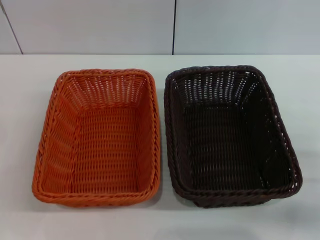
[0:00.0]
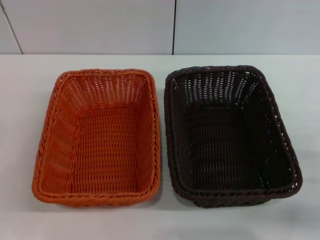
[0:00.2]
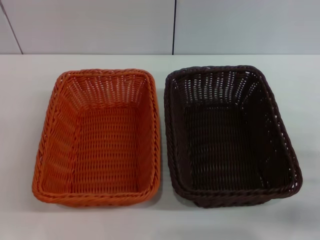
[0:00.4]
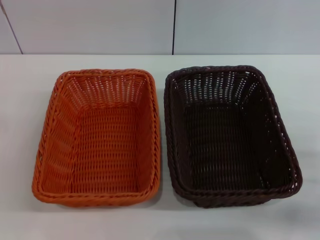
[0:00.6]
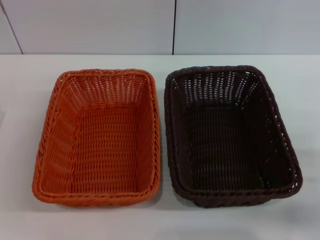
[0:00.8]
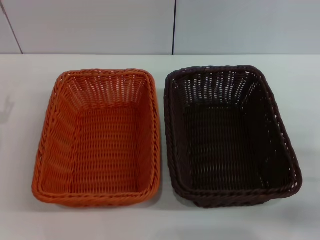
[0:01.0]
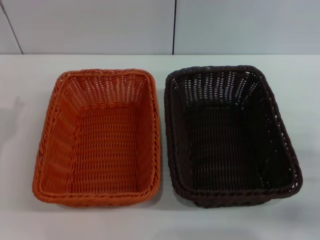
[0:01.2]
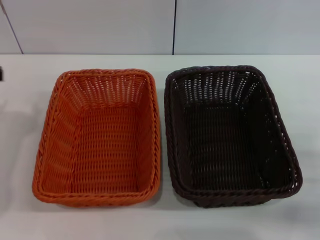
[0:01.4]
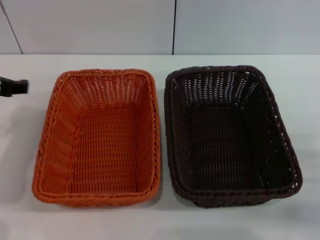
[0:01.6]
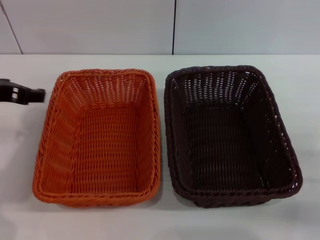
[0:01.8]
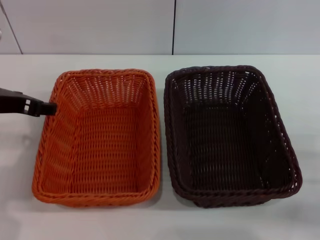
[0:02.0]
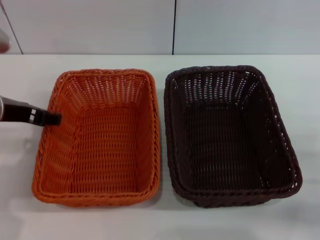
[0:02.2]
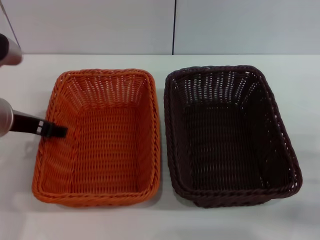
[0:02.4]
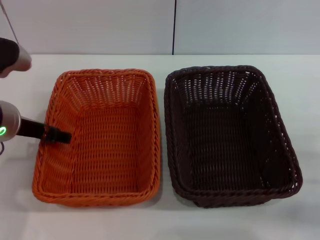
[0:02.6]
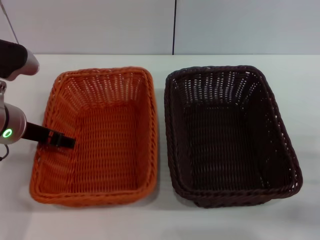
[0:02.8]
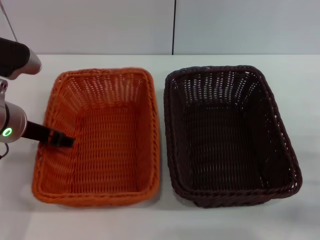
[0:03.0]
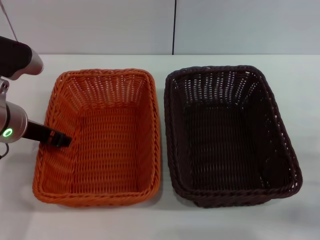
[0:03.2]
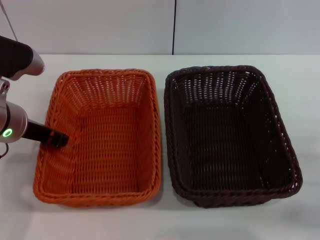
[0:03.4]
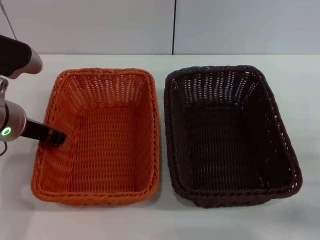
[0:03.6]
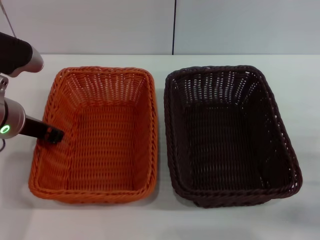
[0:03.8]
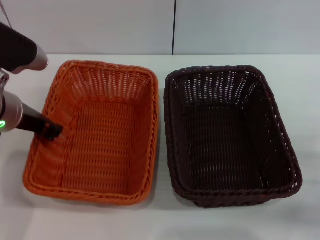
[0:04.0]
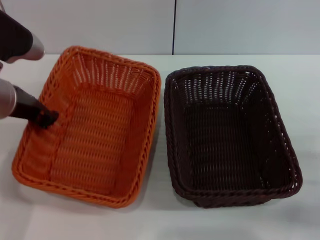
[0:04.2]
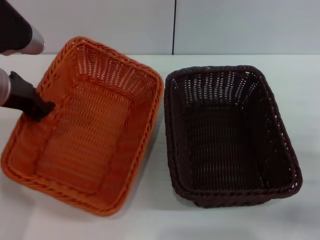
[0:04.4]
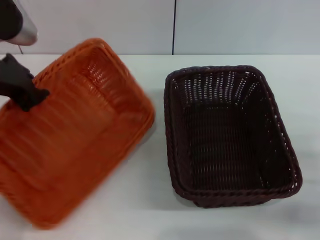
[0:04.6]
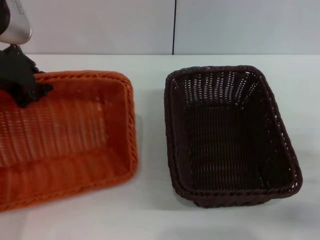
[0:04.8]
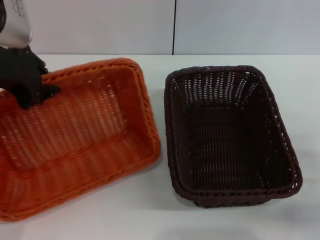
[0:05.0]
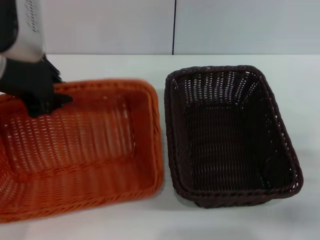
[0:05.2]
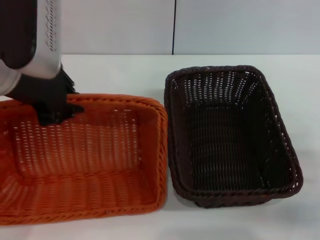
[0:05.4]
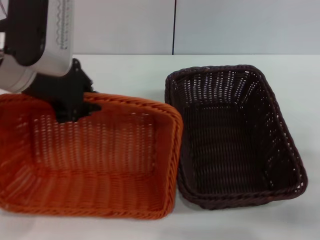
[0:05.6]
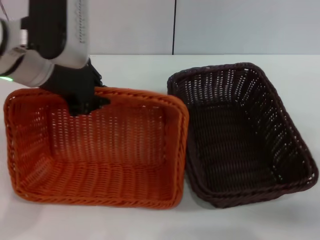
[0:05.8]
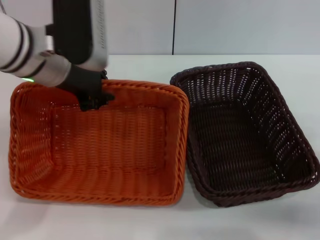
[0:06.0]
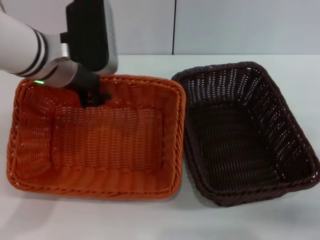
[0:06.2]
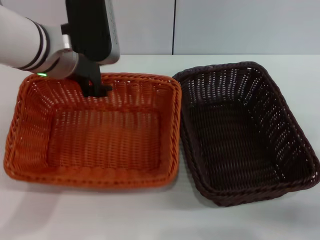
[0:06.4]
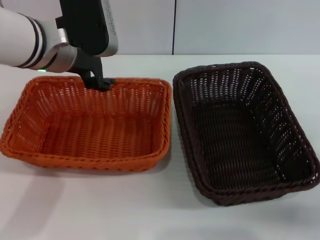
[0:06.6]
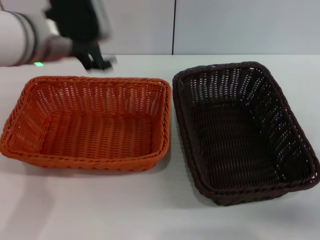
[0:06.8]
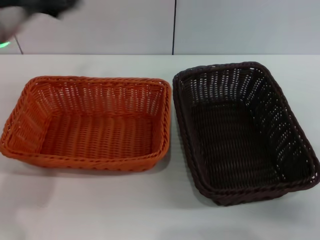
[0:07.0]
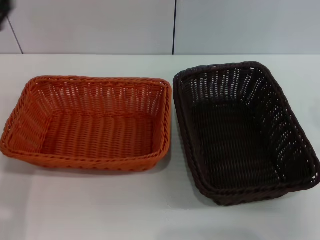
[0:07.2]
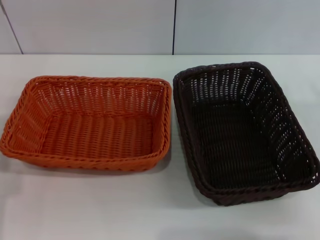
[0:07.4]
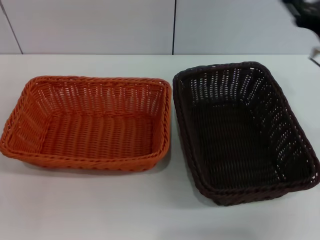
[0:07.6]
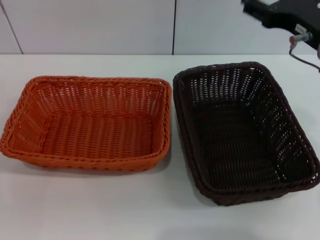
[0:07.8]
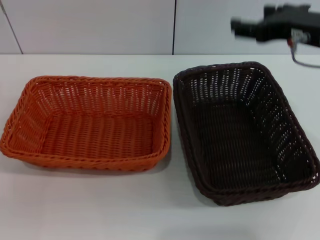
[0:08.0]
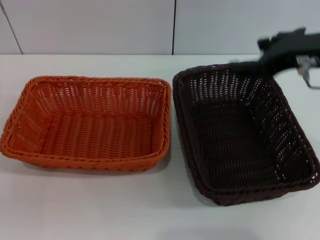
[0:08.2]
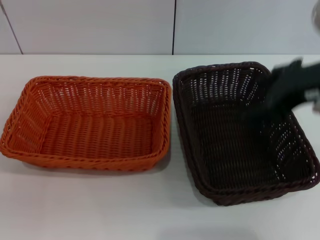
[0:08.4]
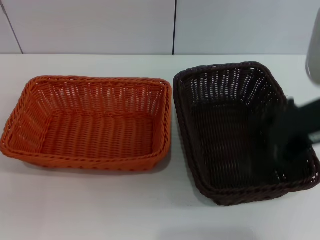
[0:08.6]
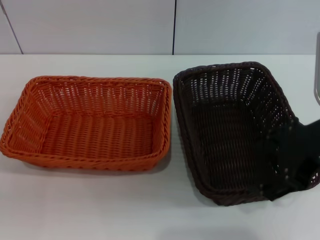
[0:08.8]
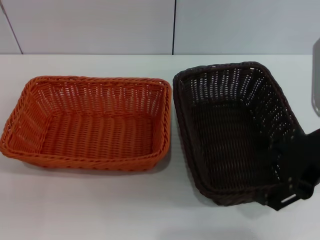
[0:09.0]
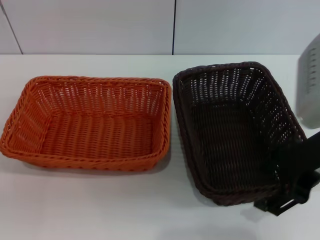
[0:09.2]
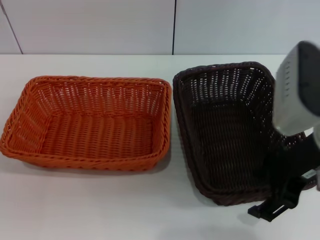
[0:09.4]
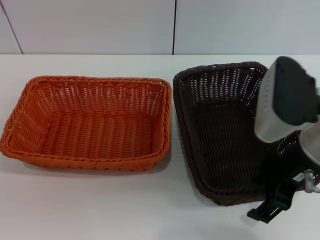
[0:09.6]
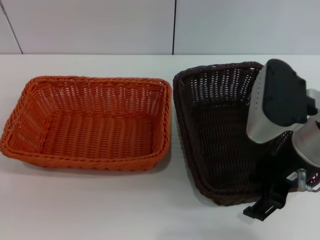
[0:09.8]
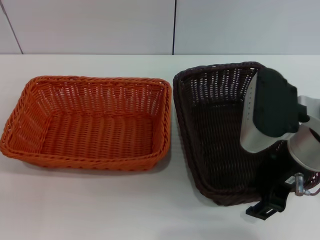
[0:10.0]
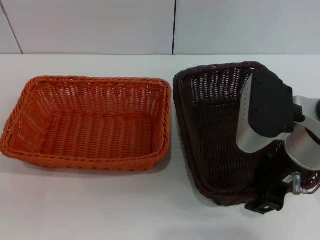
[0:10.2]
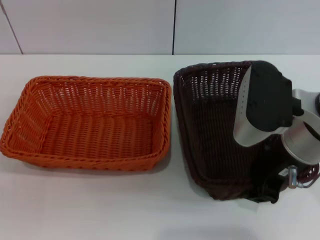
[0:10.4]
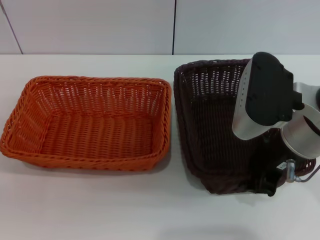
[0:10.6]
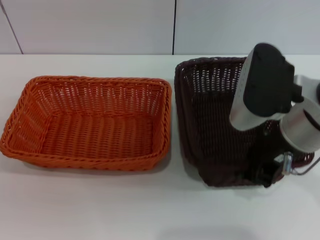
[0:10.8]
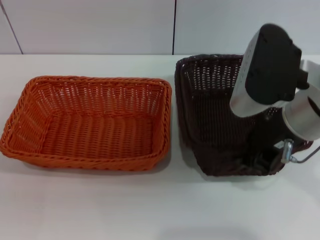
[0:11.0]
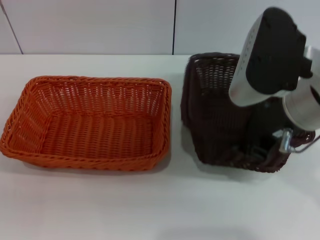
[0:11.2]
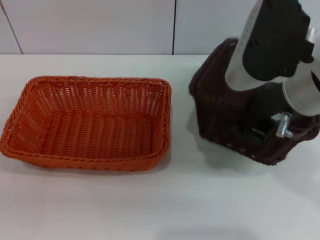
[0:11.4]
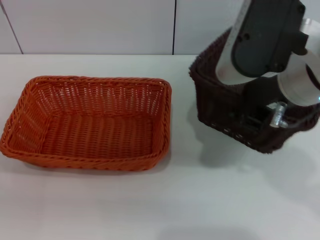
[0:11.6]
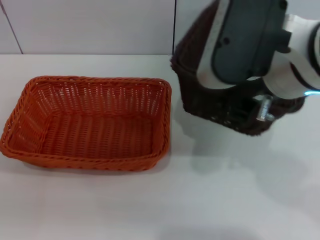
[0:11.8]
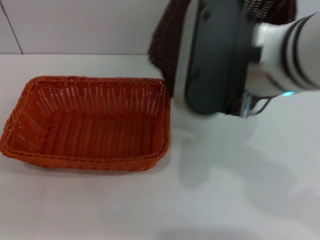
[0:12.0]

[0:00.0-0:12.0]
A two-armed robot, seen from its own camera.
Step, 0:00.0 to 0:04.2: Pick up the light basket with the left gripper.
Step, 0:04.6 to 0:06.4: Place the light basket in the center of view with the left gripper.
Step, 0:06.6 to 0:10.6: Pick up the dark basket with the right gripper.
0:00.0 to 0:01.6: The left gripper goes some 20 cm upward and forward.
0:01.6 to 0:03.0: The left gripper heads downward and to the right, covering about 10 cm.
0:03.0 to 0:04.4: The left gripper moves upward, about 5 cm, and closes.
0:04.4 to 0:06.0: The left gripper moves to the right, about 5 cm.
0:06.0 to 0:07.6: The left gripper moves to the left, backward and downward, some 25 cm, and opens its fingers; the right gripper is displaced upward, forward and to the left by about 20 cm.
0:07.6 to 0:09.0: The right gripper goes roughly 10 cm upward and backward.
0:09.0 to 0:10.4: The right gripper goes roughly 5 cm downward, and closes up.
0:10.4 to 0:12.0: The right gripper shifts some 10 cm upward and to the left, and closes its fingers.

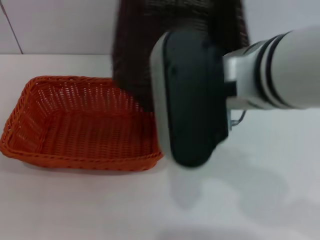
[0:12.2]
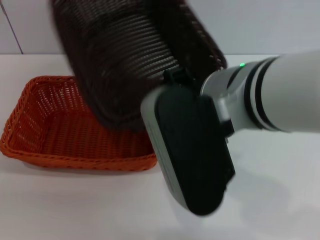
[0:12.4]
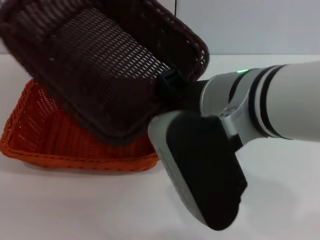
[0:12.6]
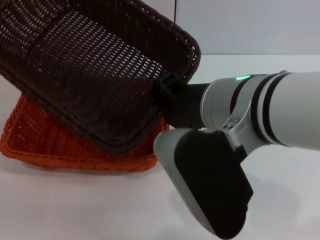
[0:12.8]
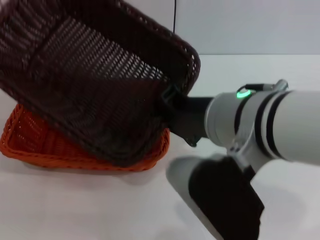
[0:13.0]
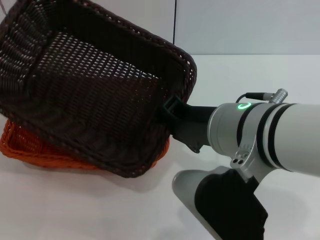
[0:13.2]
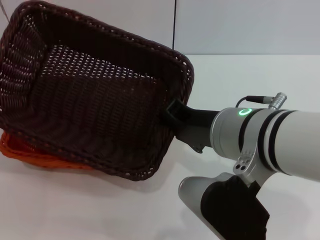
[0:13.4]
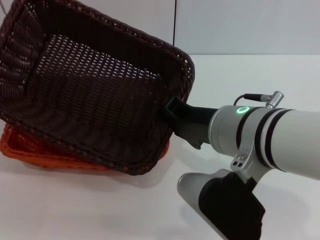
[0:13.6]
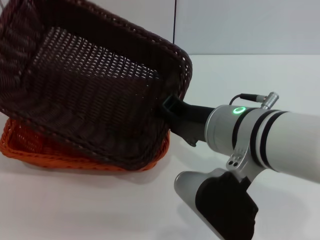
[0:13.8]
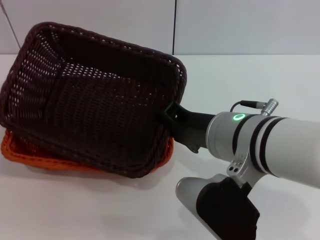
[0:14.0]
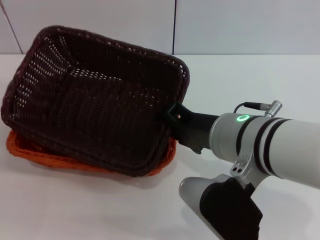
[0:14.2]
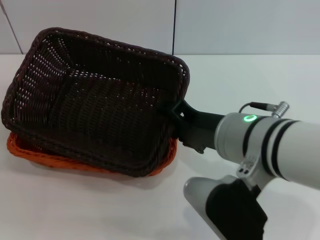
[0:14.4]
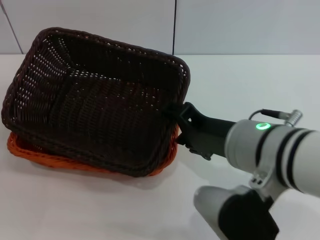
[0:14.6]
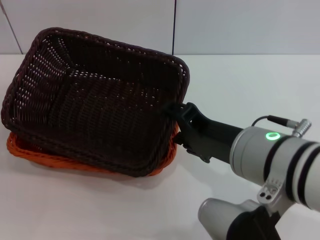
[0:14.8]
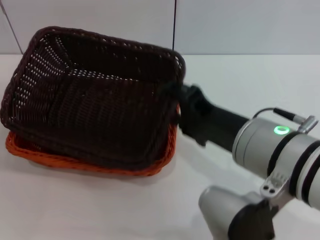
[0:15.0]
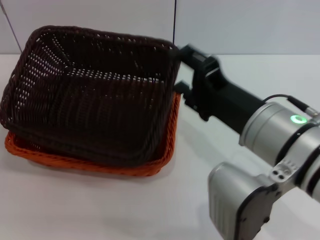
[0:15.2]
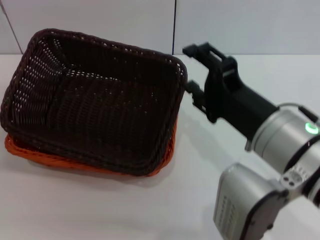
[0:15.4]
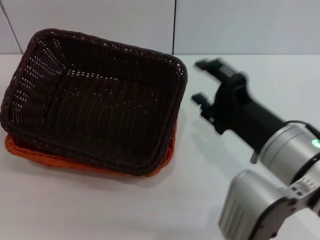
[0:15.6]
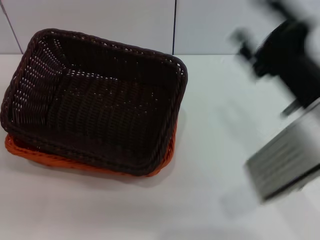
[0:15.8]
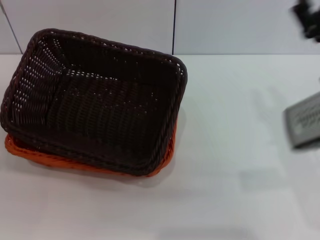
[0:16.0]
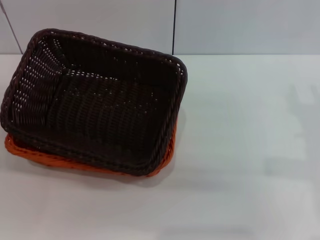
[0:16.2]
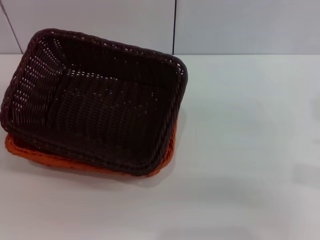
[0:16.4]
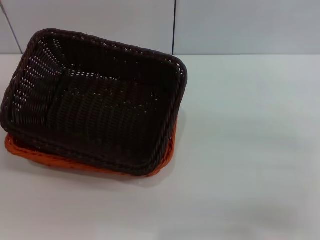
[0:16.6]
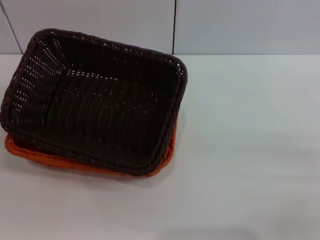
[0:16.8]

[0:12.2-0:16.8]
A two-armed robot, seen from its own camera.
Step, 0:12.2 to 0:14.2: Place the dark basket on the light basket with the right gripper.
0:12.2 to 0:13.8: The right gripper is displaced downward by roughly 10 cm.
0:13.8 to 0:15.2: The right gripper opens its fingers.
0:15.2 to 0:16.8: The right gripper is displaced to the right and downward by approximately 25 cm.

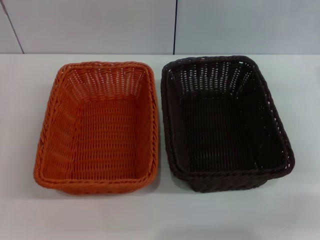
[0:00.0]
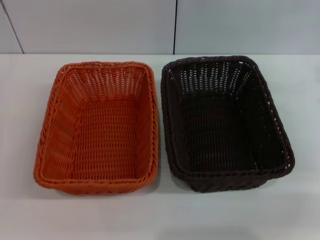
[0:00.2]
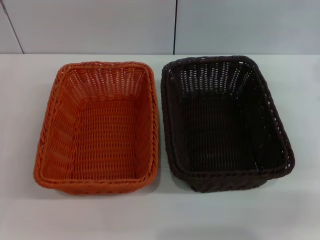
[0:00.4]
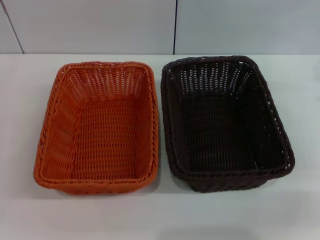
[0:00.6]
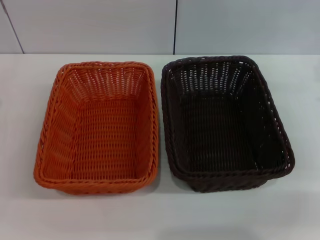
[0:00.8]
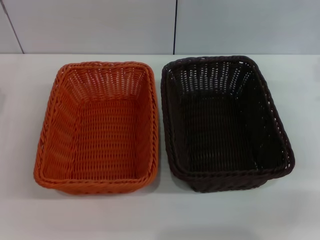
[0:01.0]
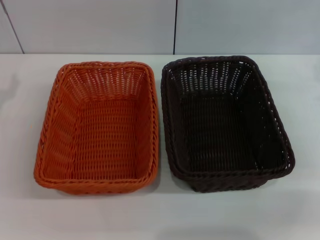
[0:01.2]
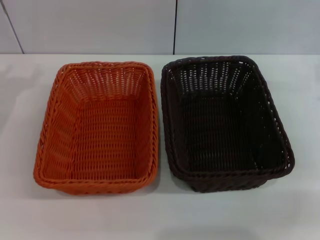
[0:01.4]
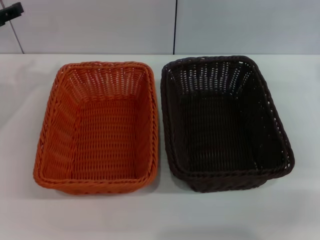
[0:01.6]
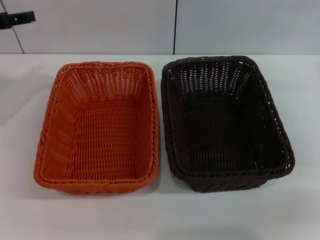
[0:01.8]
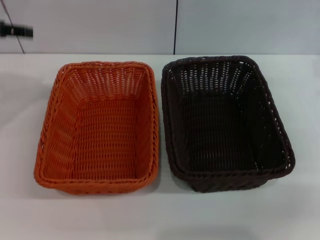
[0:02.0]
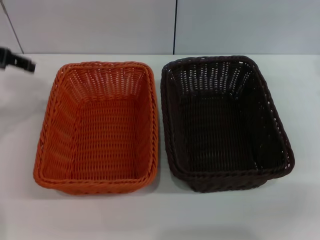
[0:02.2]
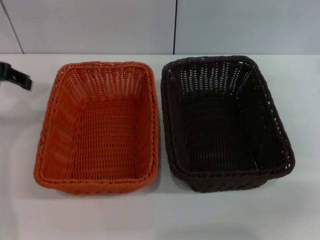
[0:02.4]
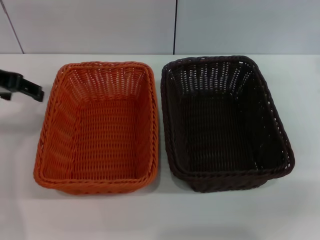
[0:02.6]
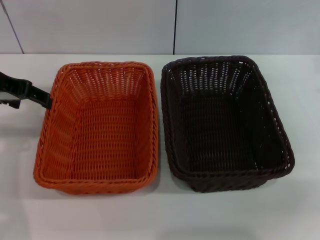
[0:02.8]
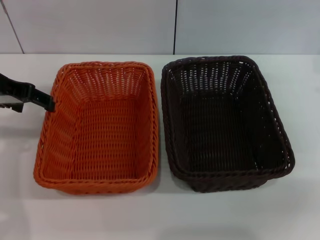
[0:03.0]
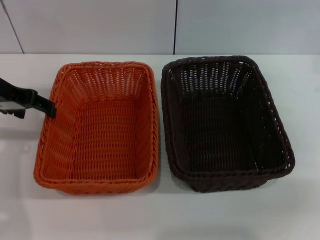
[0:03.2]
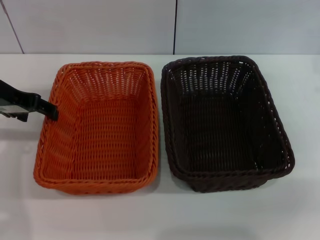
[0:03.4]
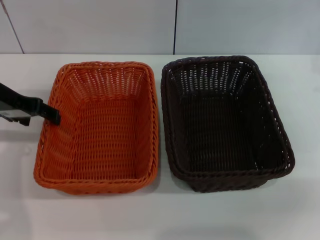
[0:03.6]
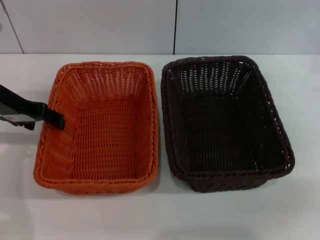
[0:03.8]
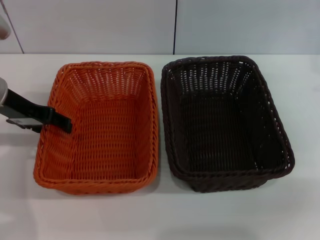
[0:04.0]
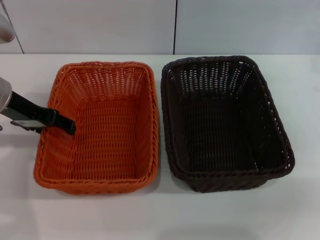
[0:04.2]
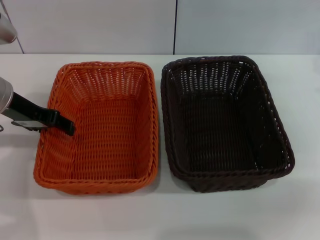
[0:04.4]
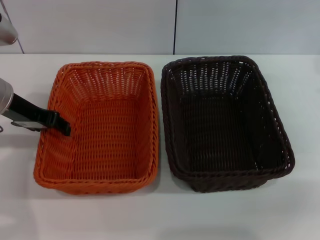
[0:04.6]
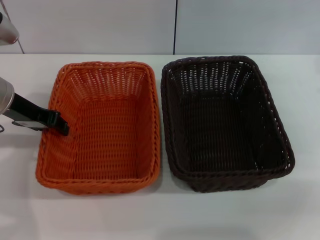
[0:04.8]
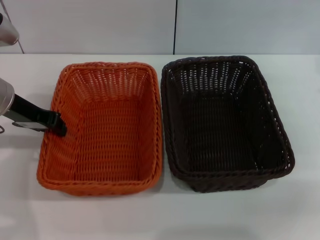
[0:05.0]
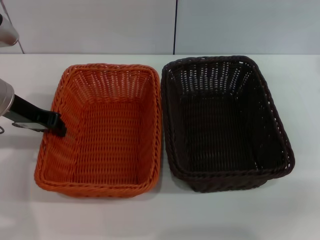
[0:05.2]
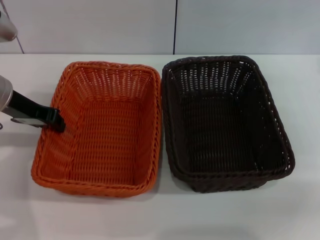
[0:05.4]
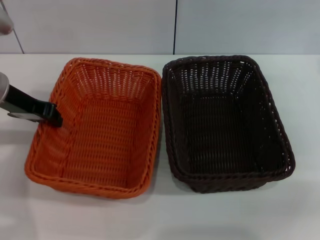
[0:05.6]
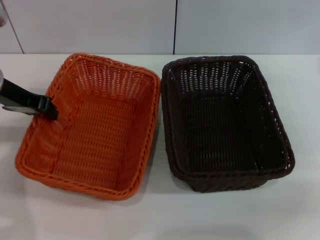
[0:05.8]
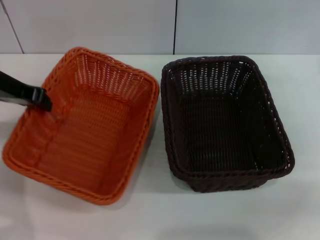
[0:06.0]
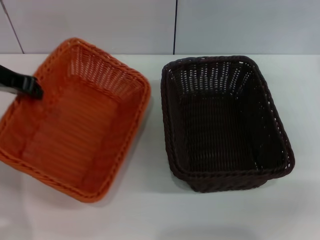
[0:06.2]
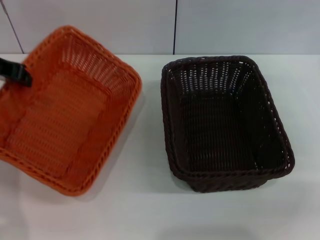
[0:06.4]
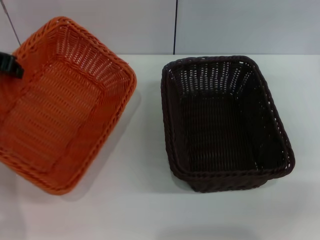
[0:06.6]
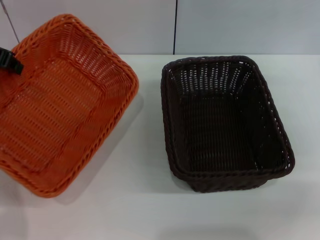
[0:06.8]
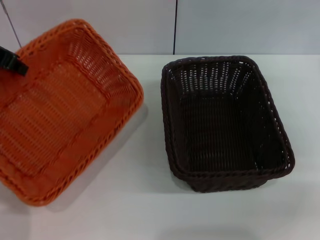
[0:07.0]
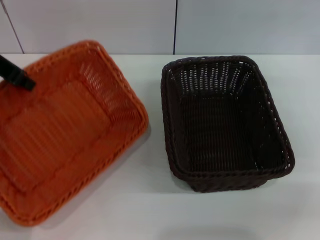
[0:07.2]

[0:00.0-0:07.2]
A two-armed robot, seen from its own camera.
Step, 0:00.0 to 0:05.4: Pick up the light basket with the left gripper.
0:01.4 to 0:02.8: The left gripper shifts approximately 10 cm upward and to the right.
0:02.8 to 0:04.4: The left gripper is displaced downward by roughly 5 cm.
0:04.4 to 0:05.8: The left gripper closes up.
0:05.8 to 0:07.2: The left gripper shifts some 10 cm upward.
